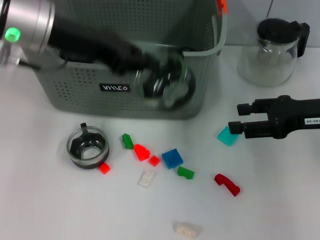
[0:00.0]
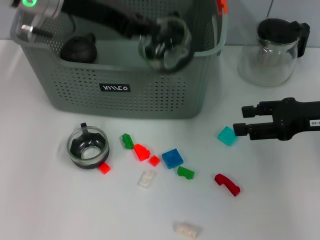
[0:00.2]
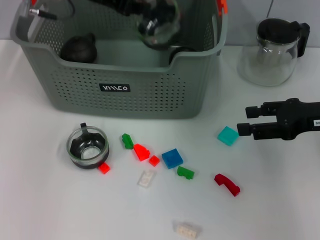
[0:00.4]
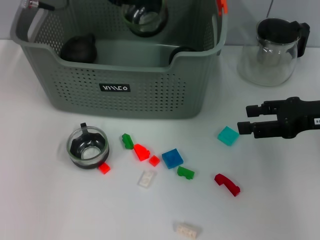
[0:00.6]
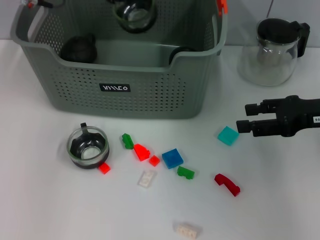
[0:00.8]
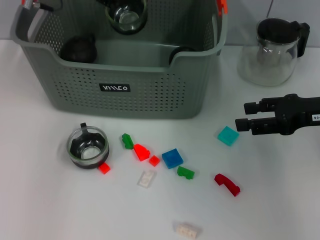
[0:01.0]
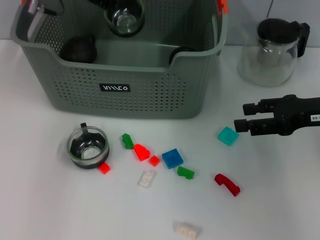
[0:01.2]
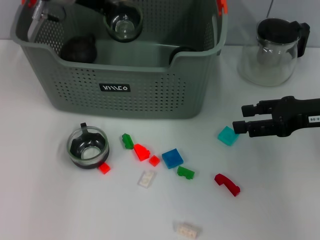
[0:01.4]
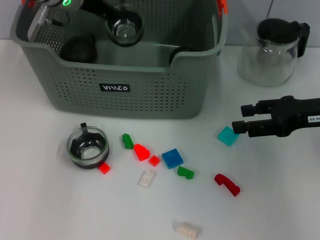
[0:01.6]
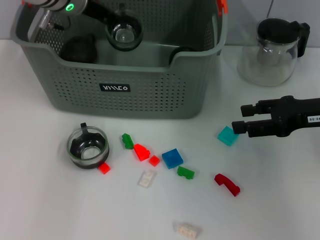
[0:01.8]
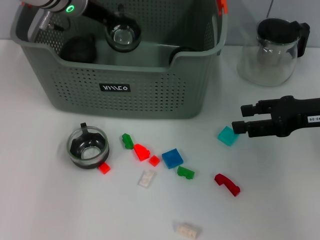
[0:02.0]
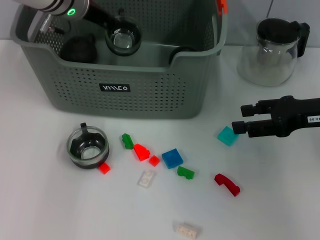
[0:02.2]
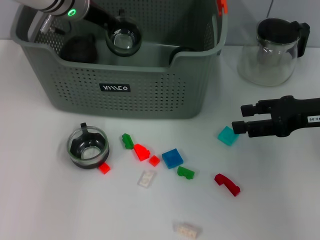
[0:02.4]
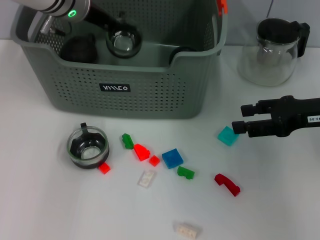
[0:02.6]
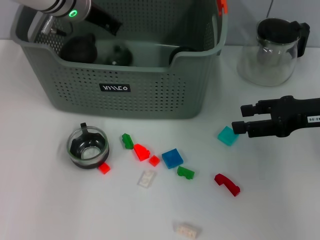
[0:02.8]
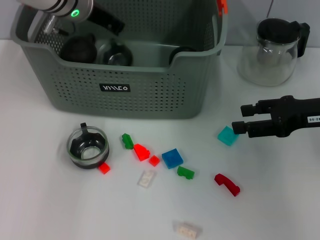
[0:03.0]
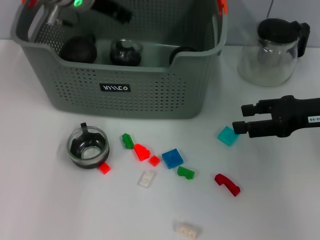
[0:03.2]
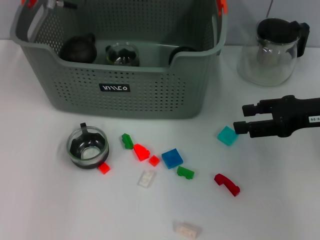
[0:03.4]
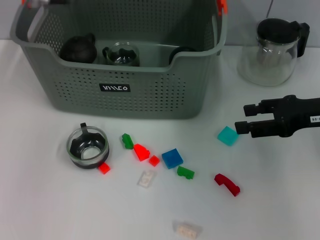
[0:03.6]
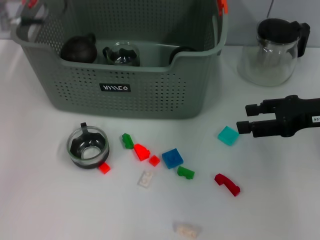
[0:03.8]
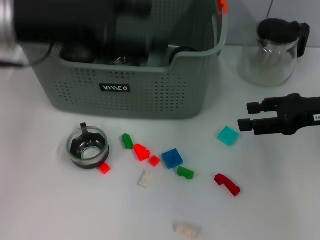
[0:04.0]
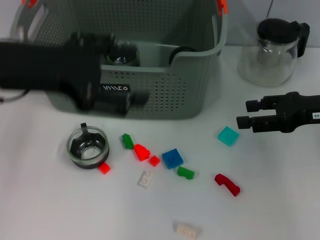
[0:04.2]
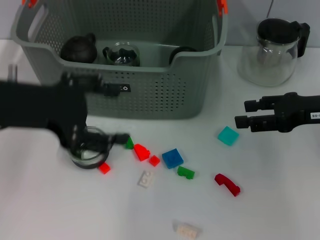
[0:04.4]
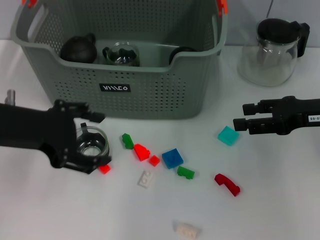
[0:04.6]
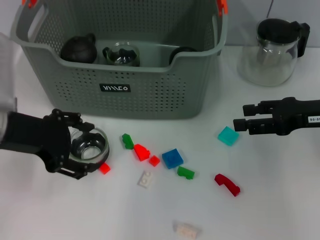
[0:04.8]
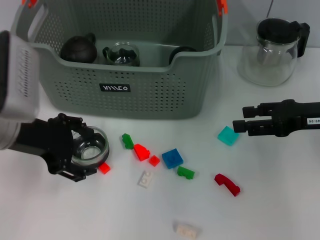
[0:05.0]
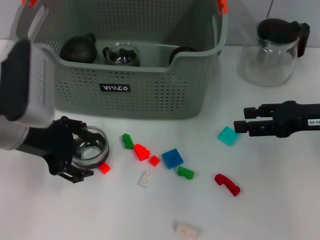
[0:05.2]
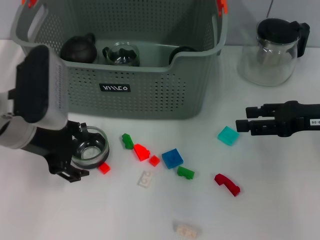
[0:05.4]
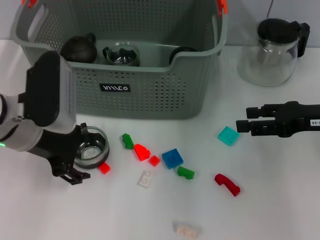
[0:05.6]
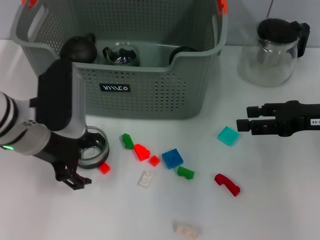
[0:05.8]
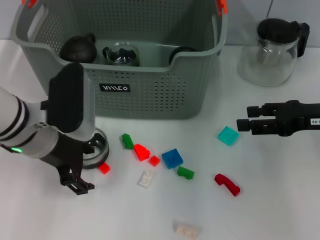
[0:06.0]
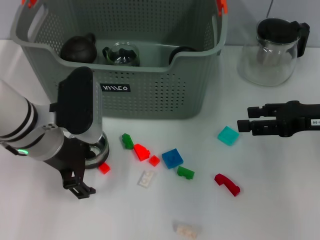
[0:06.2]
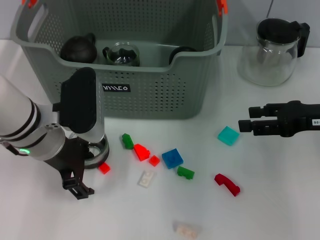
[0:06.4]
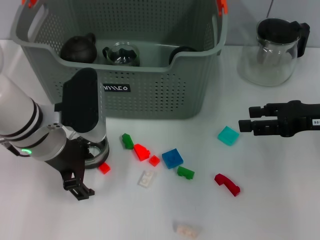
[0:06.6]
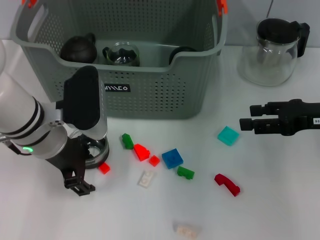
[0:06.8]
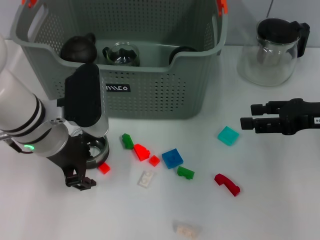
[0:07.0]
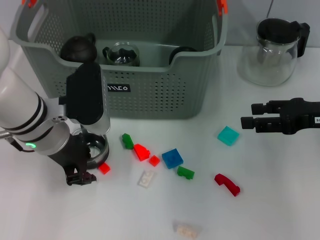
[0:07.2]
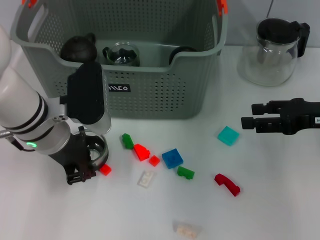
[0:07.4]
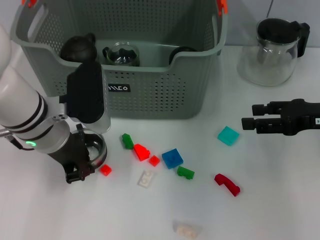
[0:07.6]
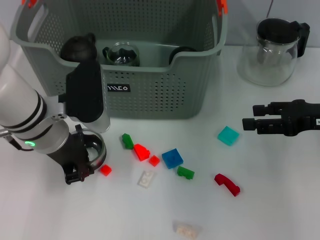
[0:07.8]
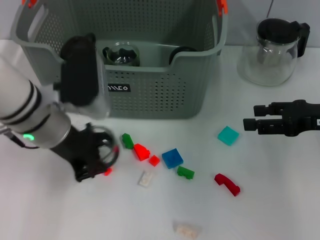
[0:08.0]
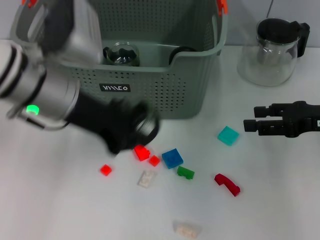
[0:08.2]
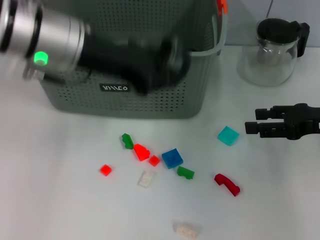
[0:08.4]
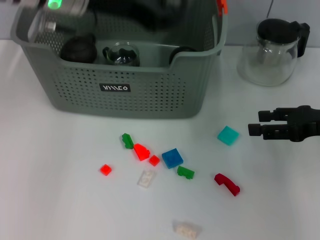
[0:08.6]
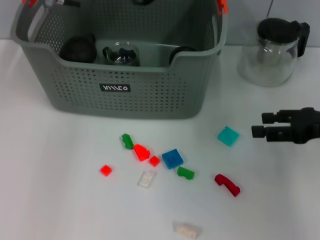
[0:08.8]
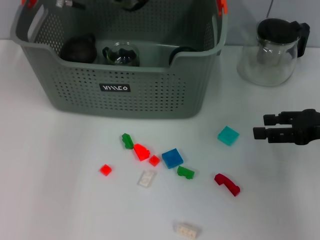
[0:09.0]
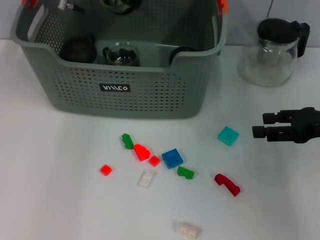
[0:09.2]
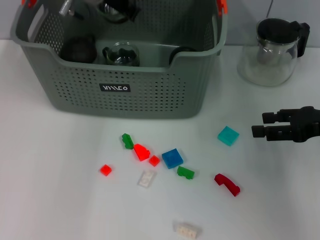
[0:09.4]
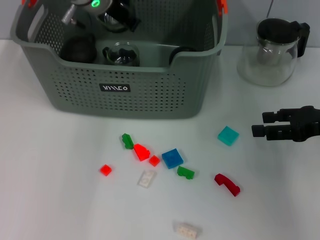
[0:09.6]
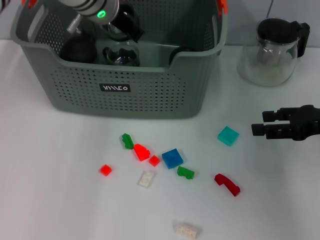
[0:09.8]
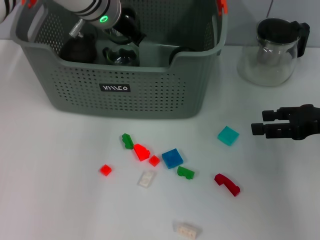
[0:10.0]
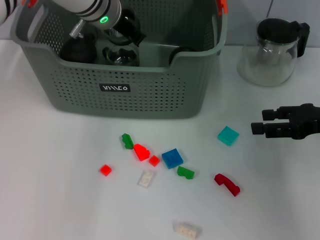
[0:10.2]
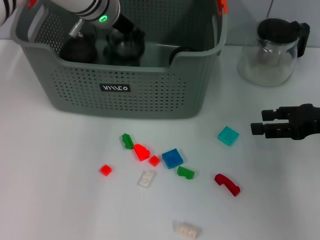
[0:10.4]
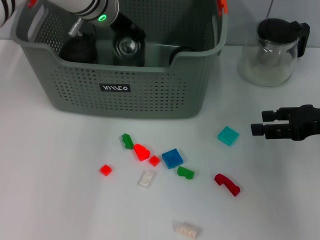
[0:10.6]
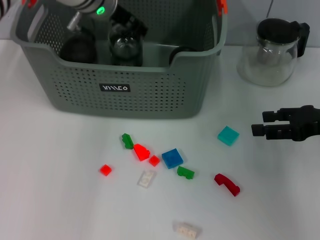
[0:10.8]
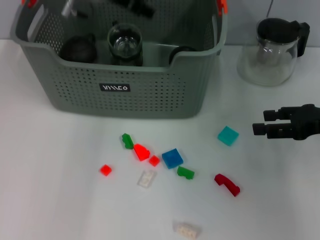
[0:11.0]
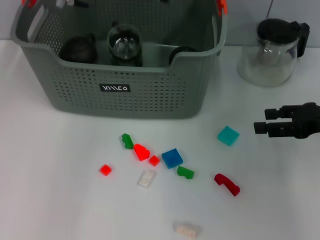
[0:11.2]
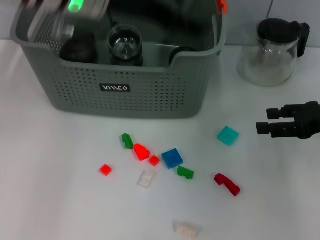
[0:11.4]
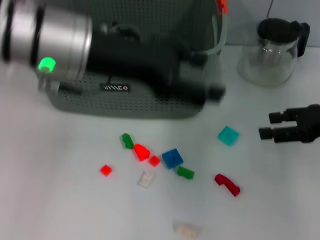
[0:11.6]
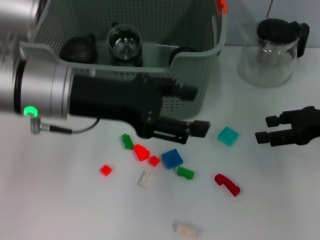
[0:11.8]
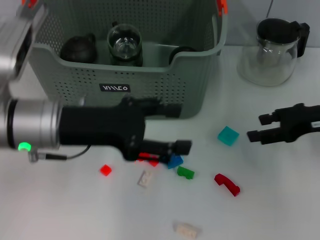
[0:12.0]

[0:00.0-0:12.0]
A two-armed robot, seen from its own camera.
Task of the whole recording: pick up the teacup on the table and place it into the storage bin, pick up the block on the table and place it into the storage bin.
Step, 0:00.0 to 0:03.2: Place the cup in the storage box with left gripper.
Step, 0:03.4 to 0:07.4: Grasp the cup with left gripper.
Step, 0:07.6 to 0:10.8: Place the cup in the storage box with left gripper.
0:00.0 to 0:01.6: The left gripper travels forward by approximately 10 cm.
0:01.6 to 0:03.0: The grippers stay close to where they were, moving slightly.
0:03.0 to 0:04.4: The left gripper goes roughly 20 cm backward, and opens.
0:04.4 to 0:06.0: The left gripper is displaced downward by roughly 10 cm.
0:06.0 to 0:07.6: The left gripper closes up.
0:07.6 to 0:09.0: The left gripper travels forward and upward by about 20 cm.
0:09.0 to 0:10.4: The left gripper ends up roughly 5 cm from where it was.
0:10.4 to 0:12.0: The left gripper shifts roughly 20 cm backward and to the left, and opens.

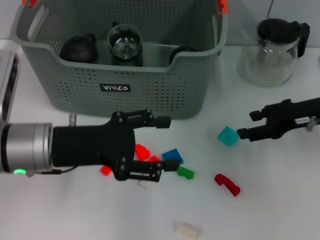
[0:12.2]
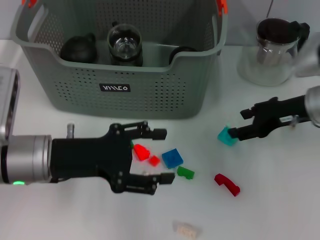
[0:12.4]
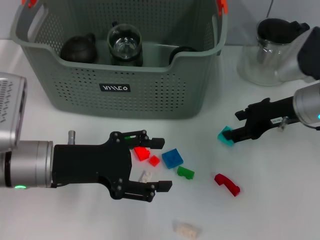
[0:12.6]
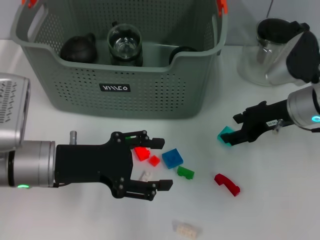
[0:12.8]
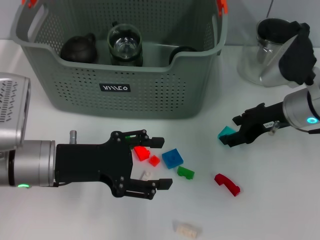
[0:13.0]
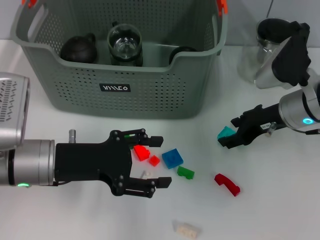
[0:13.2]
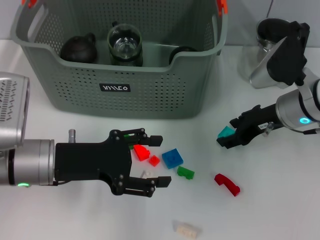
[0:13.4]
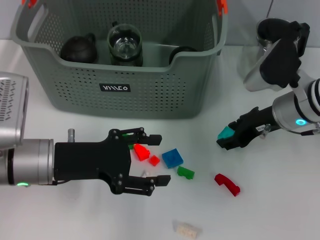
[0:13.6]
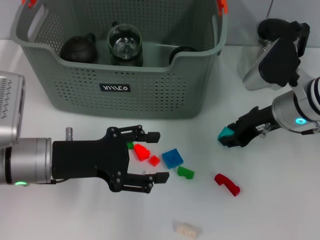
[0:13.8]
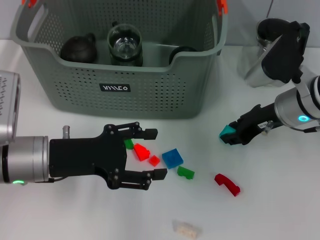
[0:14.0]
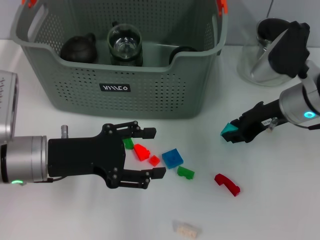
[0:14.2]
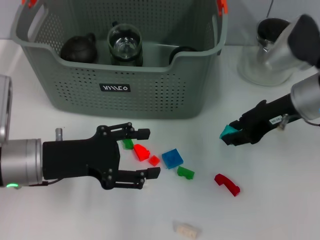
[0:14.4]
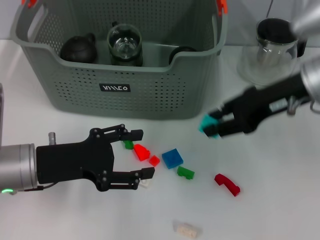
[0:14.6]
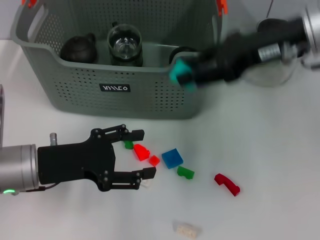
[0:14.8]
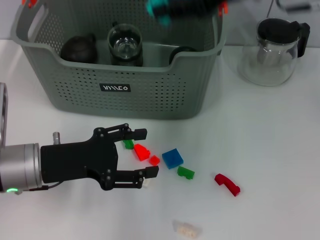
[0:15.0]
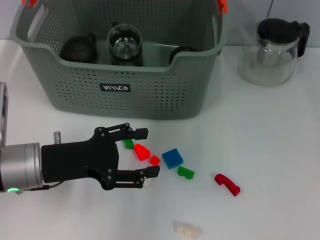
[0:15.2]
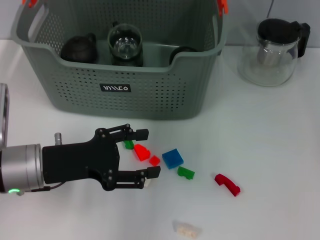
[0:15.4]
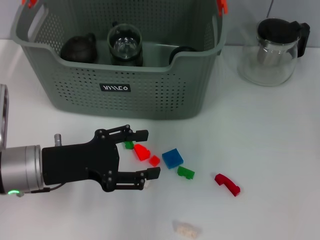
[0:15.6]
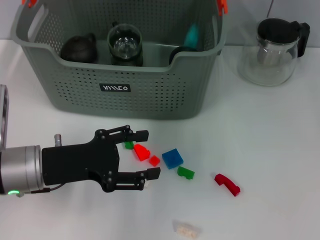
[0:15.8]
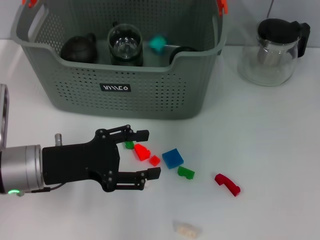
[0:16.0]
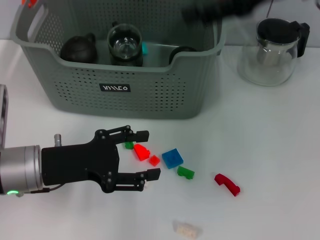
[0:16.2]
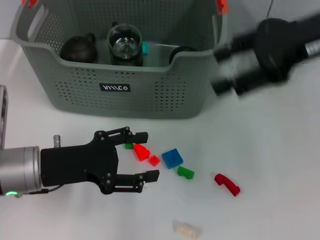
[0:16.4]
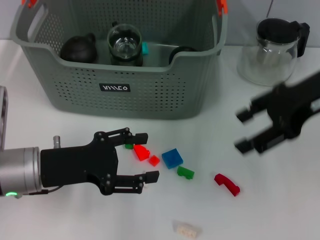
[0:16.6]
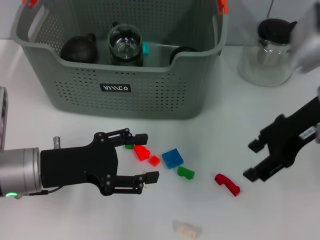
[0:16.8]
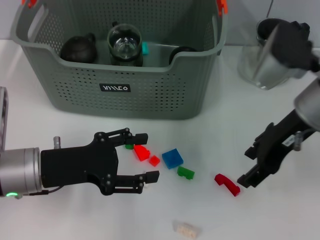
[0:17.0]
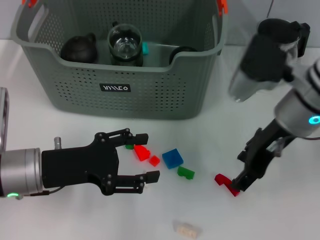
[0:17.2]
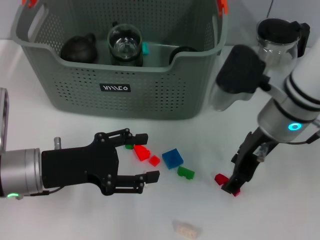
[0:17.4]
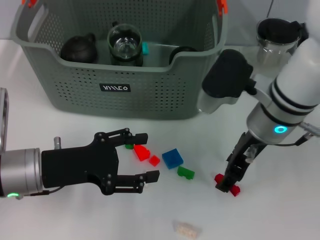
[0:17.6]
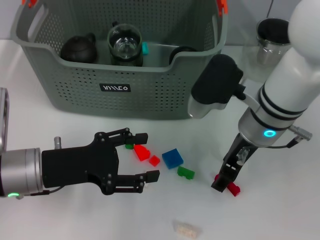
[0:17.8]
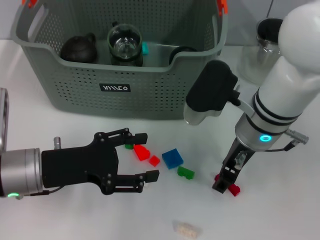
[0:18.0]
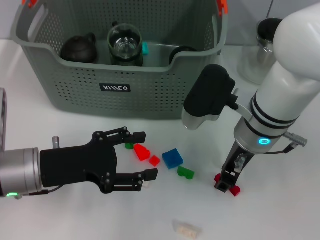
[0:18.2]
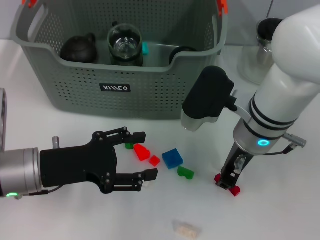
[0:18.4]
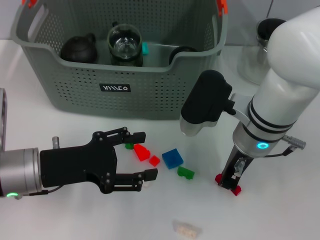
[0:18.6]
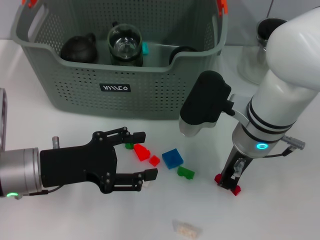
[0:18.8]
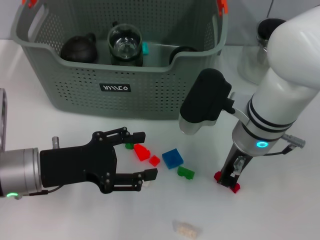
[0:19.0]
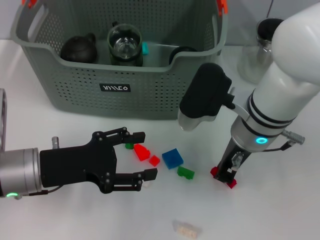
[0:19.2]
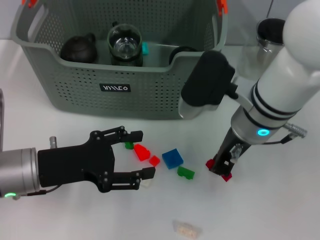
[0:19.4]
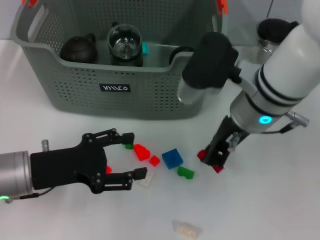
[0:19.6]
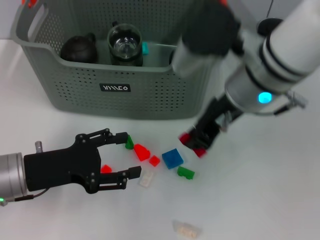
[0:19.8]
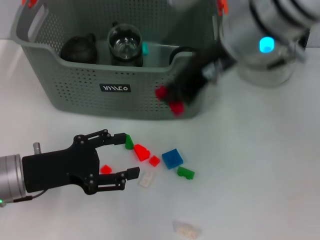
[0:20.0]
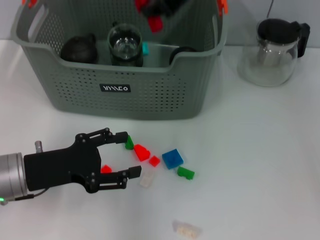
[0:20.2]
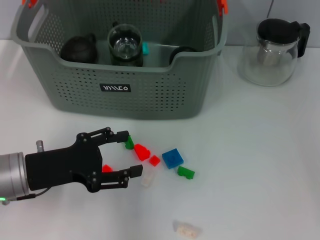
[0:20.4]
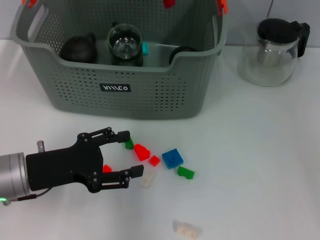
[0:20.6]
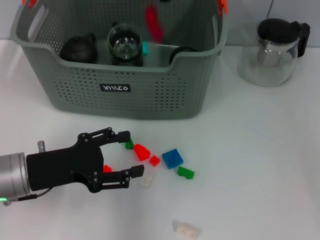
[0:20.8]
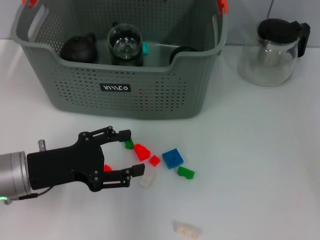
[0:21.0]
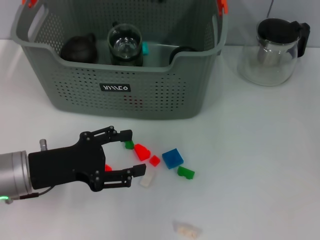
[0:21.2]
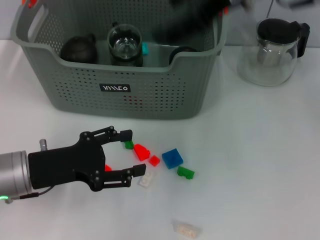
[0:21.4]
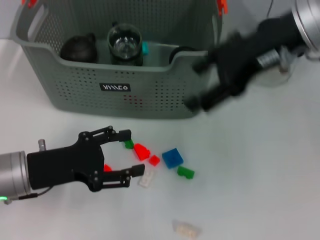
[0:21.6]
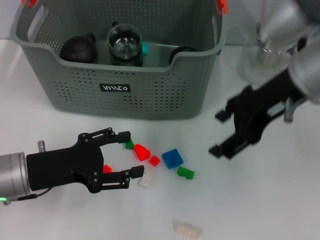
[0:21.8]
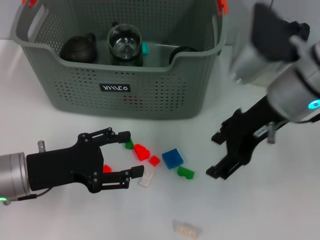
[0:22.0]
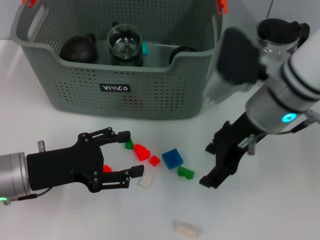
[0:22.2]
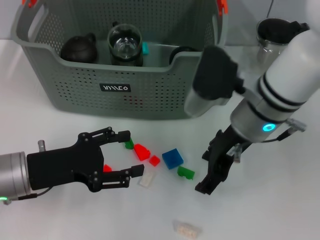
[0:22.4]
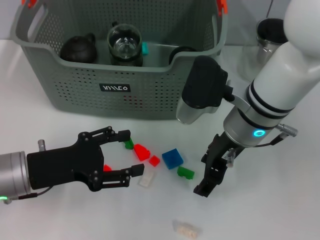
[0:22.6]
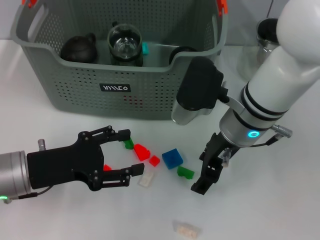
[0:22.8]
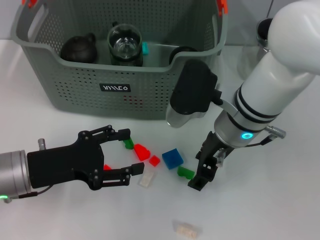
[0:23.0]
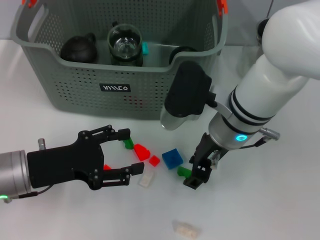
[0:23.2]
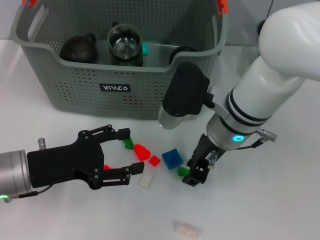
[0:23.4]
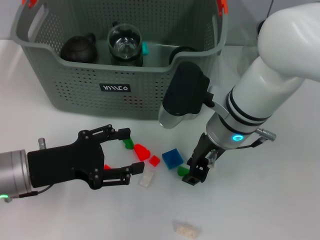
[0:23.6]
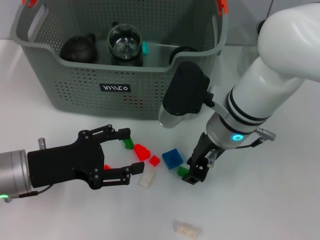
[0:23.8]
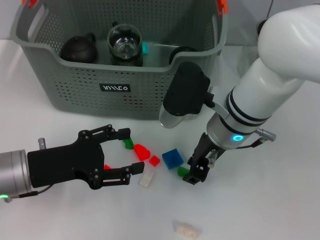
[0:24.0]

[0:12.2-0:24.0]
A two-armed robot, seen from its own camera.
Task of the whole recording: pick up the teacup on the table and place it into the storage bin, pick up the block on the table and place it into the storage bin.
Step, 0:12.2 to 0:13.8: Grasp the light blue block with right gripper.
Step, 0:14.0 to 0:16.0: Place the light blue block in the storage box with right gripper.
Step, 0:16.4 to 0:18.8: Grasp the red block with right gripper.
Step, 0:19.0 to 0:21.2: Place the red block in the storage box with right gripper.
0:12.2 to 0:13.6: The right gripper travels to the left by approximately 5 cm.
0:13.6 to 0:15.2: The right gripper moves upward, some 25 cm.
0:15.2 to 0:16.6: The right gripper is displaced to the right, downward and backward by approximately 15 cm, and opens up.
0:16.6 to 0:18.2: The right gripper moves to the left and downward, some 15 cm.
0:18.2 to 0:19.6: The right gripper closes up.
0:19.6 to 0:21.0: The right gripper heads upward and forward, covering some 15 cm.
0:21.0 to 0:22.6: The right gripper moves downward and backward, about 20 cm, and opens.
0:22.6 to 0:24.0: The right gripper closes.
